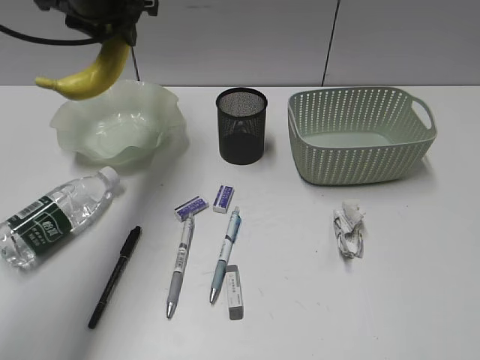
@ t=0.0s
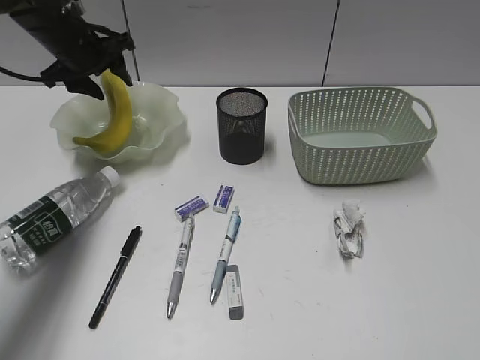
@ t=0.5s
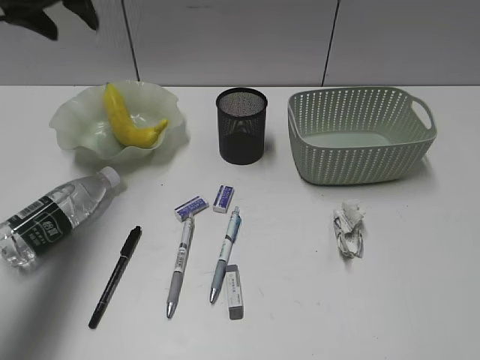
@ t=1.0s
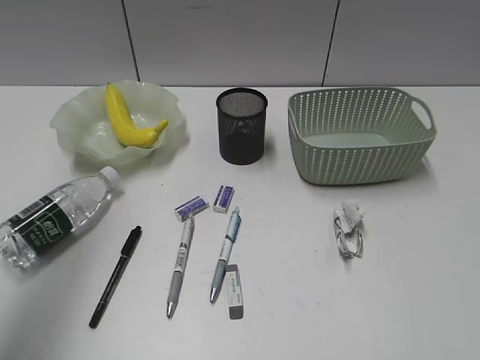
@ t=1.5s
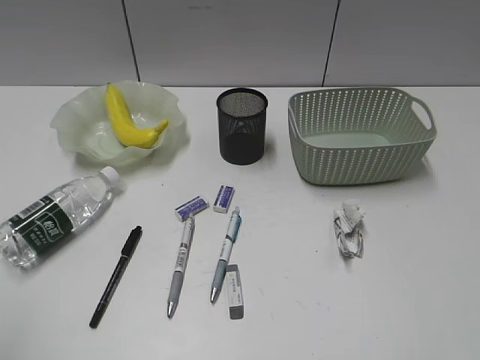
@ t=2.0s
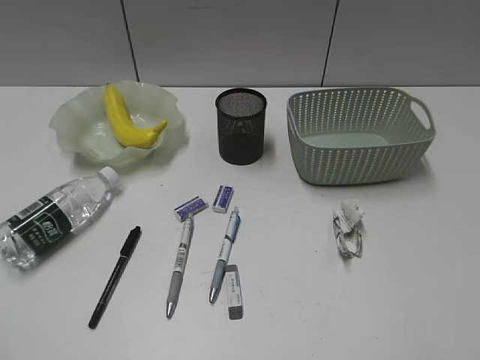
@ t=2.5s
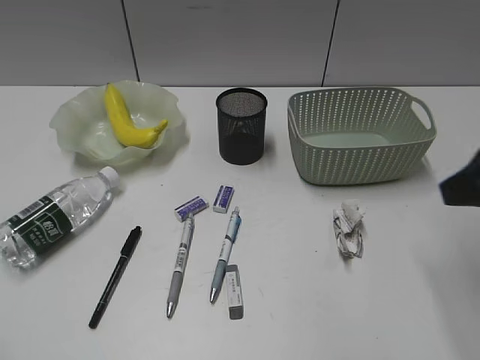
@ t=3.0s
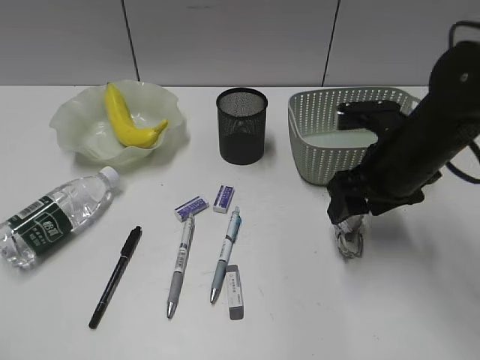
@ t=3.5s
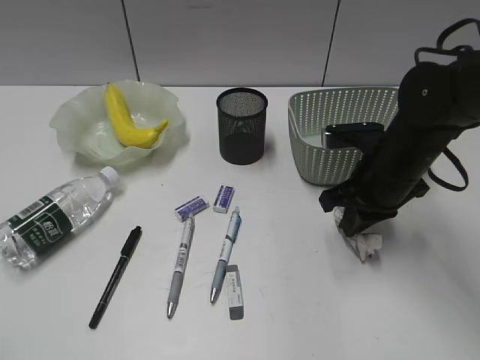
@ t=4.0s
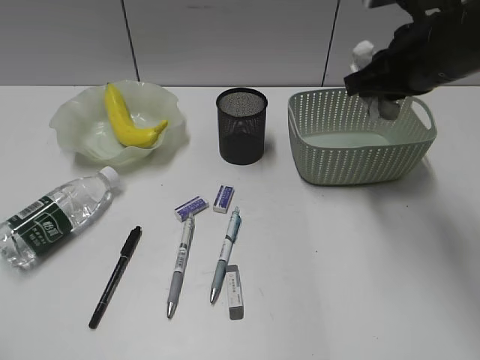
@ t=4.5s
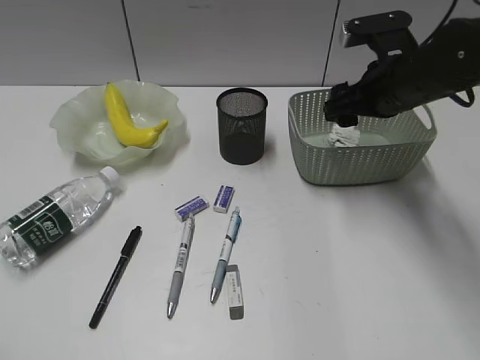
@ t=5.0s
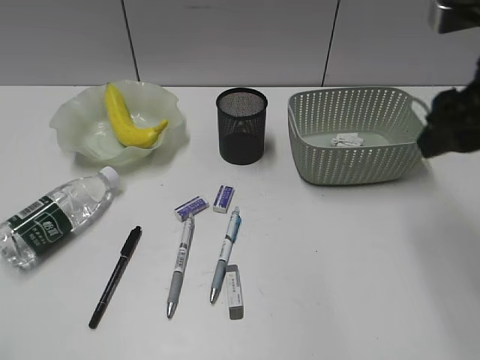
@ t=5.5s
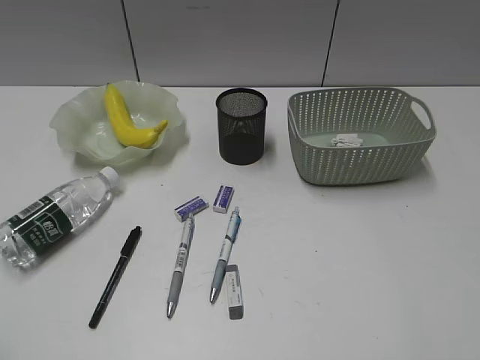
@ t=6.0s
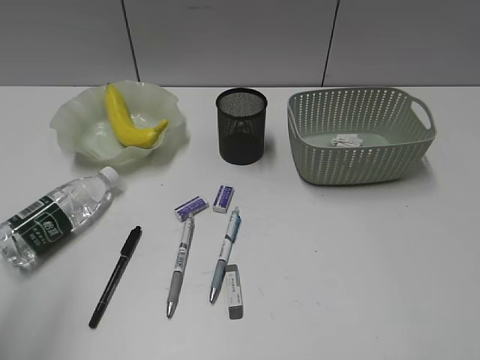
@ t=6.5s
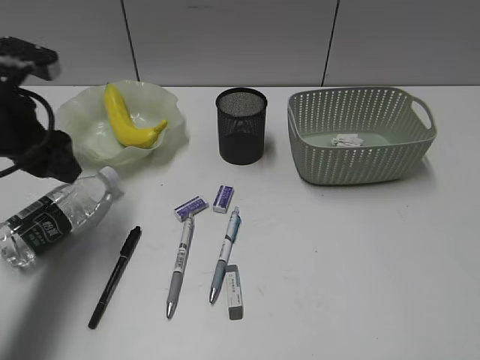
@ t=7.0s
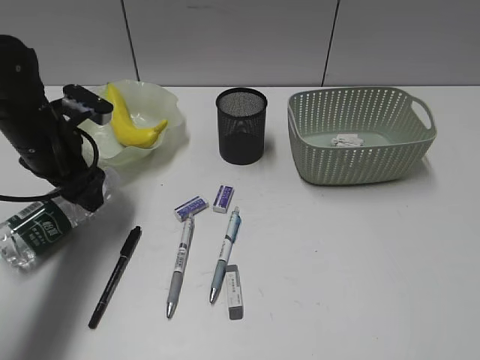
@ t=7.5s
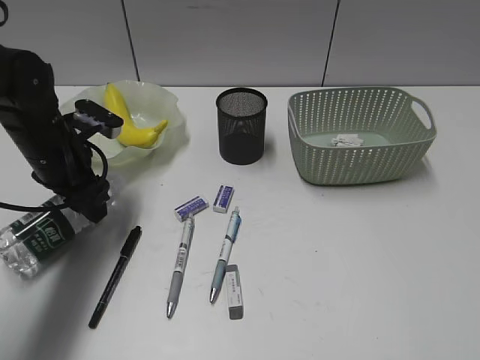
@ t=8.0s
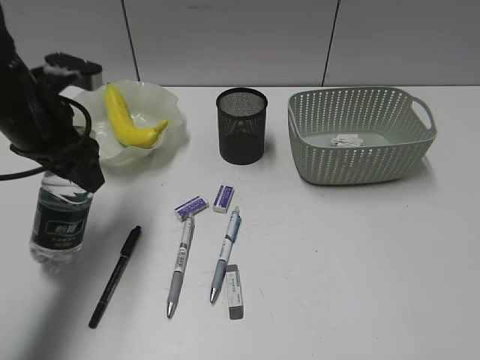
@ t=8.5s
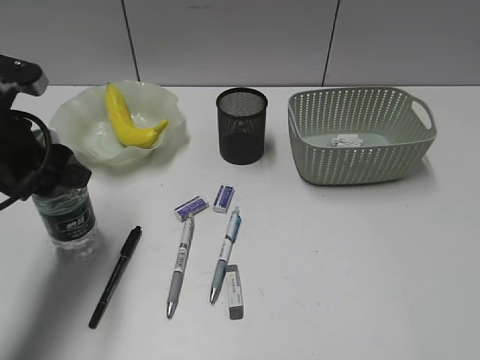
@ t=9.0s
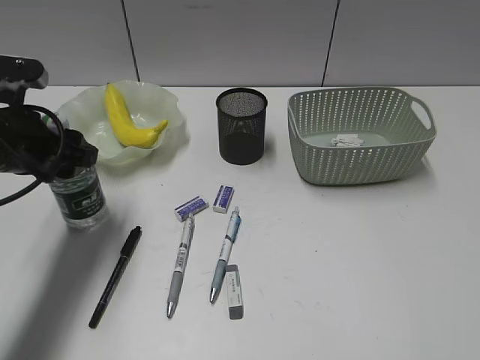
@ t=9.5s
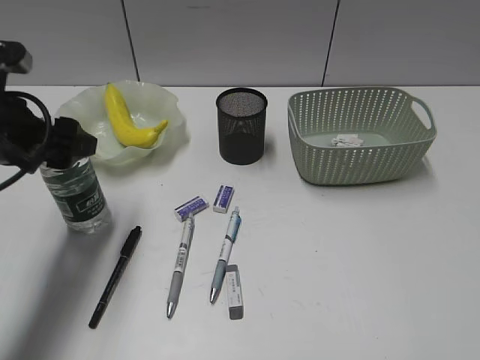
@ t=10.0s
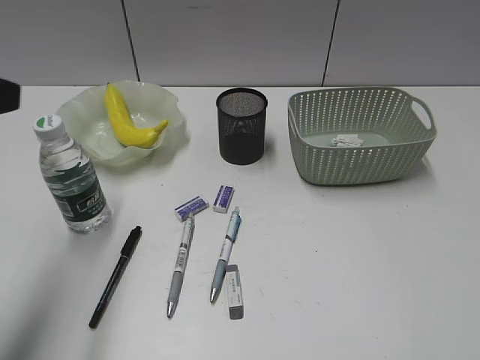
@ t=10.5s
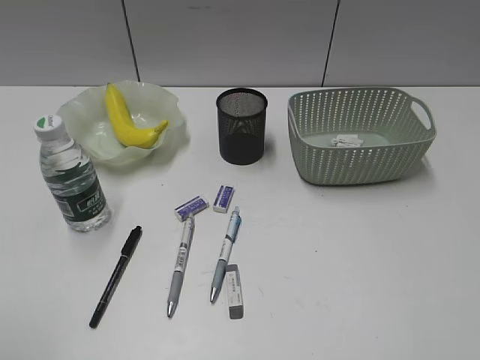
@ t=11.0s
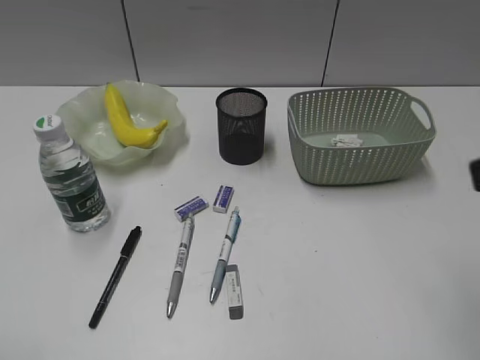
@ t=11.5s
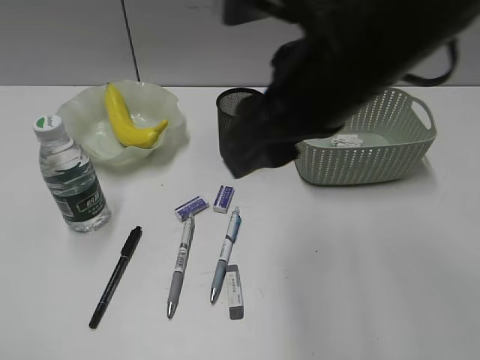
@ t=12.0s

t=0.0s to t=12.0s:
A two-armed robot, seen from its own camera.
Step, t=1.0s to t=4.0s: Grasp the waste paper with right gripper.
Step, t=4.5s to t=5.0s: Place the waste paper in the basket with right gripper.
Step, t=5.5s to t=7.5s: Grasp the bottle with left gripper.
Step, t=8.0s to t=10.0s: Stand the bottle with left gripper.
t=0.0s to t=2.0s: The left gripper is displaced backward by some 40 cm.
t=2.0s to t=4.0s: The right gripper heads forward, downward and to the left, covering roughly 40 cm, and closes up.
t=4.0s to t=6.0s: The right gripper heads backward, upward and to the right, covering some 30 cm, and opens its fingers.
t=6.0s to t=8.0s: The left gripper heads forward and downward, covering about 40 cm.
t=8.0s to t=10.0s: The left gripper shifts roughly 10 cm upward and backward.
t=10.0s to t=12.0s: The left gripper is displaced backward by about 25 cm; the right gripper is displaced to the left and forward by about 35 cm.

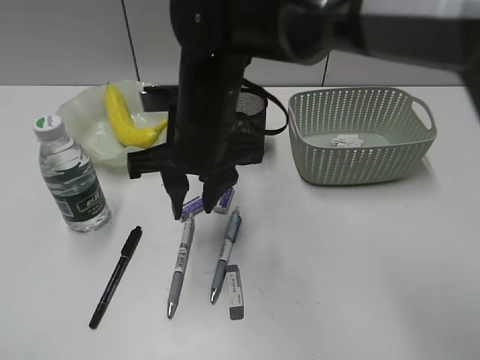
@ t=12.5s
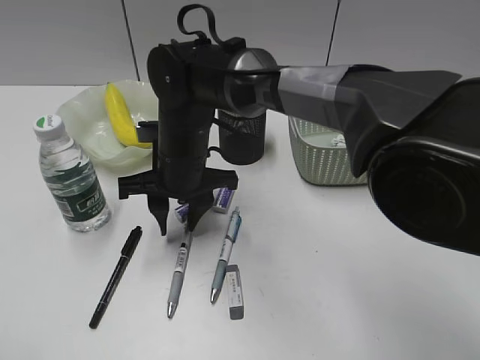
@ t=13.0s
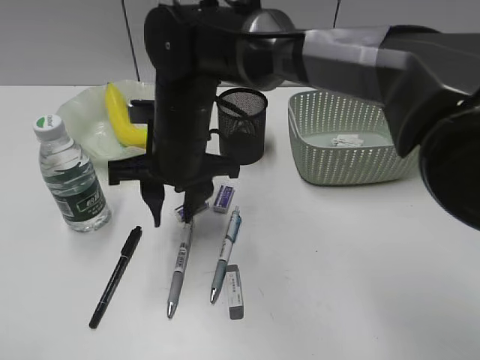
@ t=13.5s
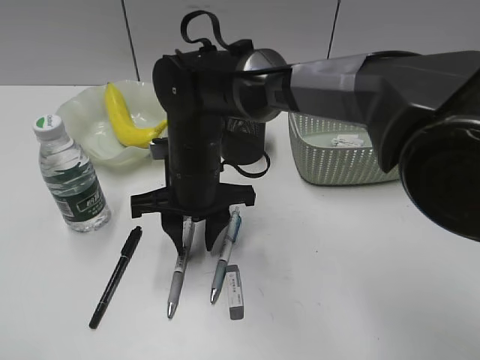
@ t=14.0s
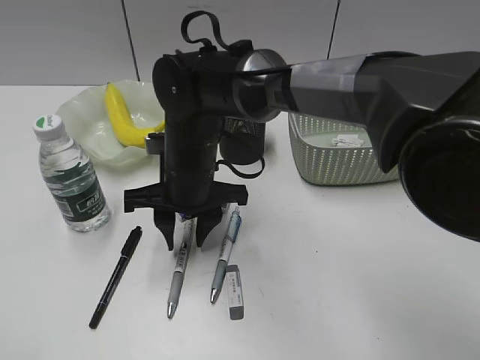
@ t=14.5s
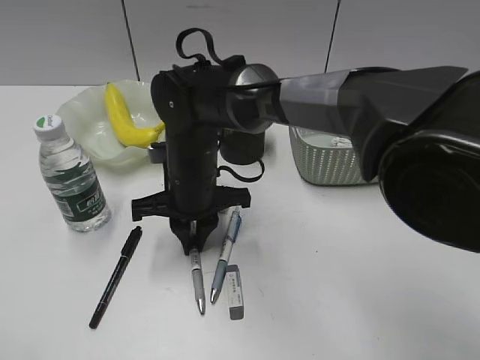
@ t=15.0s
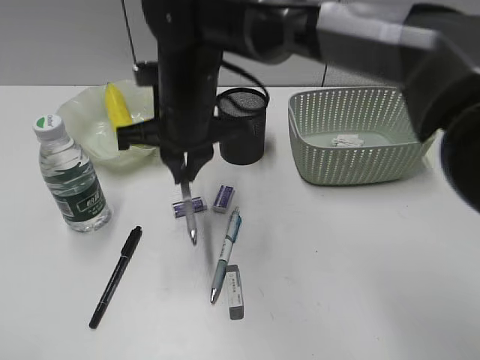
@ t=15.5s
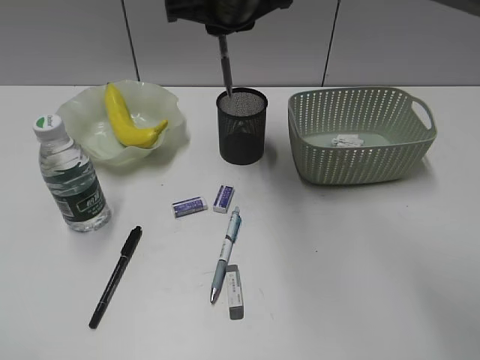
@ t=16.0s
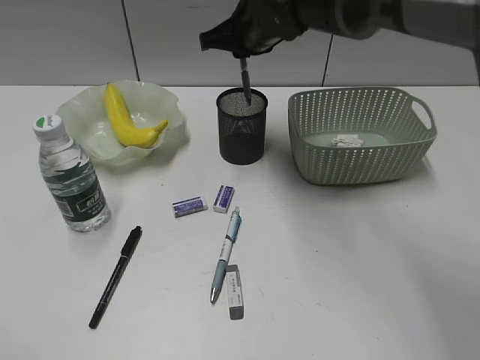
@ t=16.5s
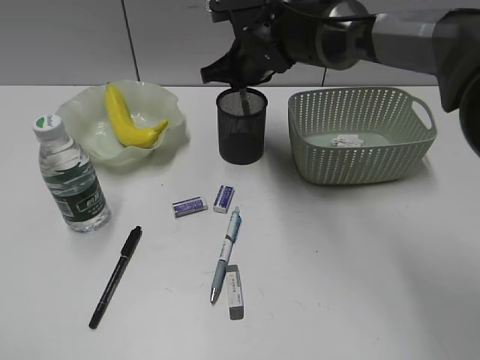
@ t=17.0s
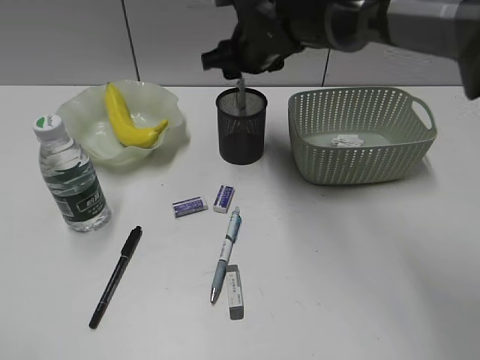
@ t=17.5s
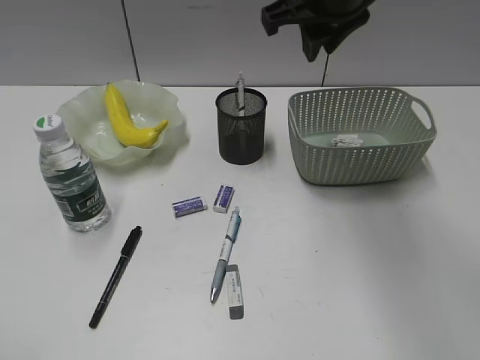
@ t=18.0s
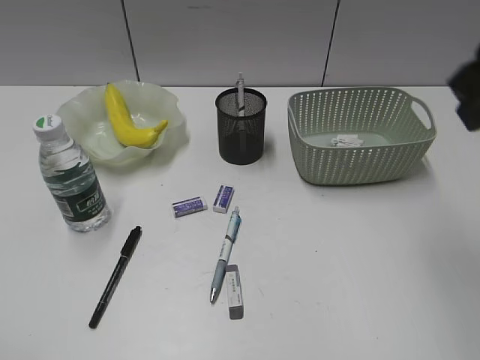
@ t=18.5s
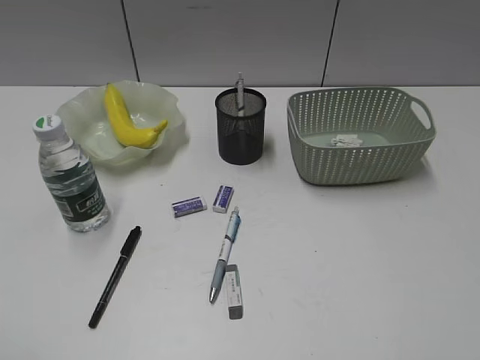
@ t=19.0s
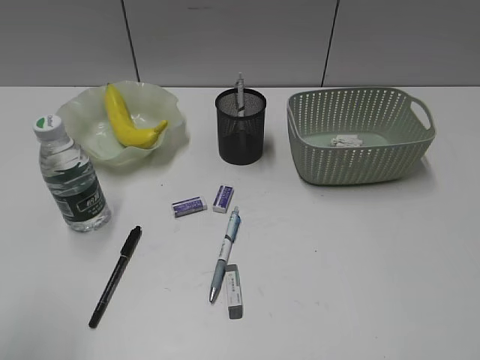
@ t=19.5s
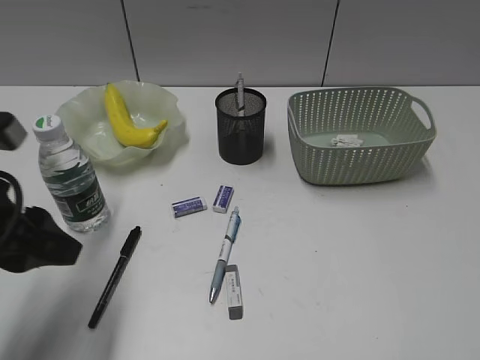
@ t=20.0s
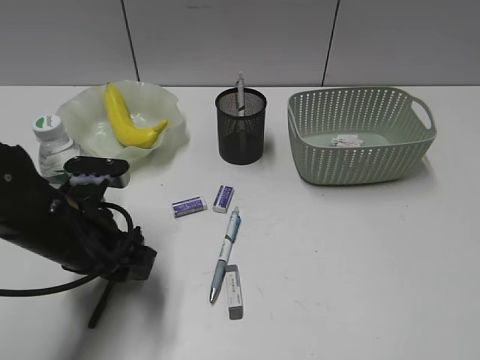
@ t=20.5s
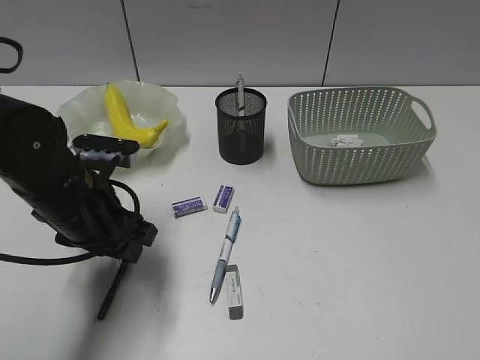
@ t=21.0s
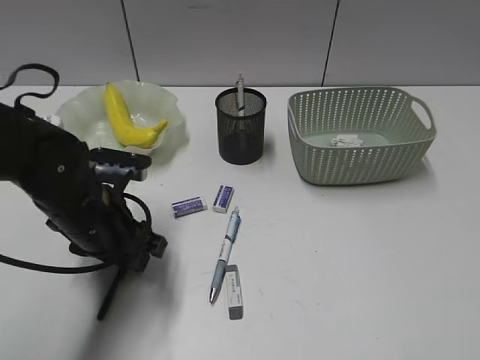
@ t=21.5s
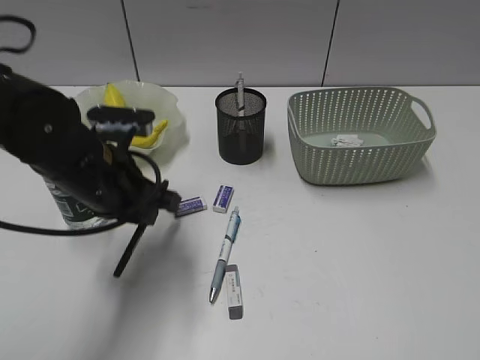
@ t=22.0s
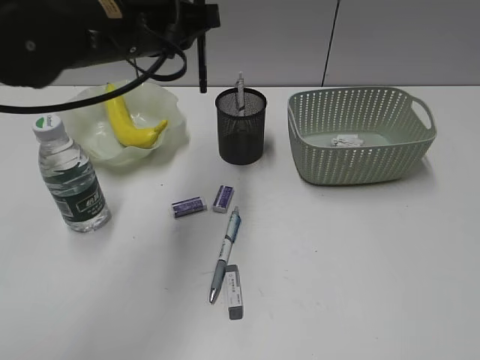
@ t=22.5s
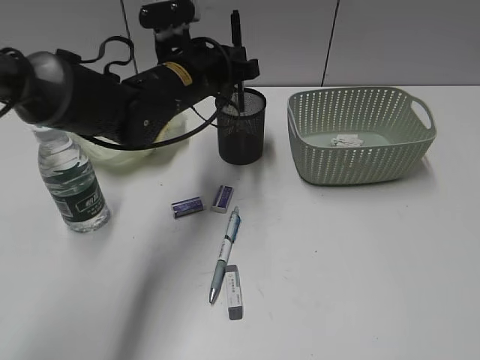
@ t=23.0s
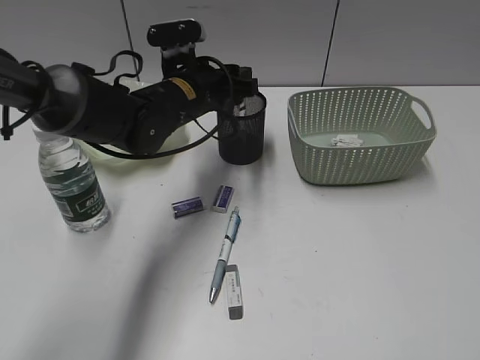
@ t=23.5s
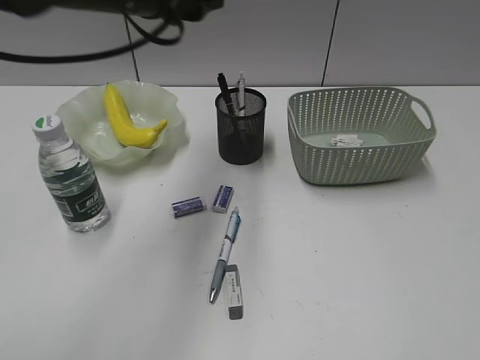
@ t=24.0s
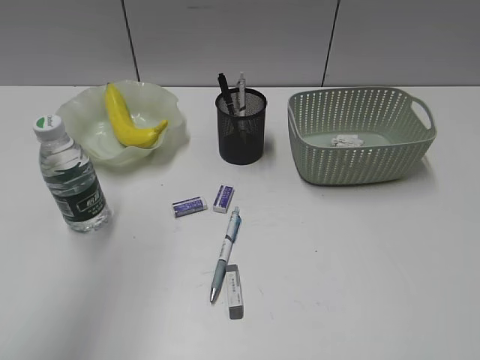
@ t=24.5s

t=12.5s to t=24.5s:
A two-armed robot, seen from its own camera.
Step, t=12.5s to t=15.0s: Grasp the gray pen with right gripper.
Step, t=15.5s to t=17.0s: Place the gray pen in pen holder with right gripper.
Step, t=17.5s to t=21.5s: Grasp the black pen with right gripper.
t=12.5s to t=14.5s: The right gripper is displaced downward by roughly 5 cm.
t=14.5s to t=16.5s: The right gripper moves forward, upward and to the right, roughly 20 cm, and closes.
t=16.5s to t=18.5s: The right gripper shifts some 35 cm backward, to the right and upward, and opens, then closes once more.
t=18.5s to t=20.5s: The right gripper moves backward and to the right, about 25 cm, while the left gripper moves forward, downward and to the right, roughly 30 cm.
t=20.5s to t=22.5s: The left gripper is displaced upward, forward and to the right by roughly 20 cm, and closes up.
t=22.5s to t=24.5s: The left gripper is displaced backward, upward and to the left by about 25 cm, and opens up.

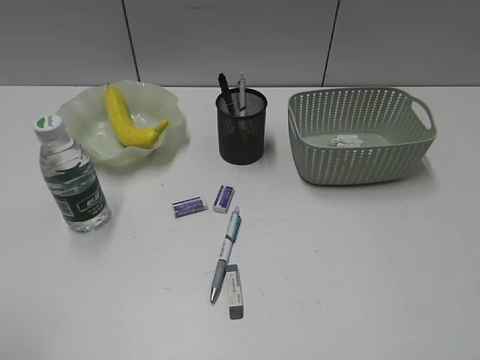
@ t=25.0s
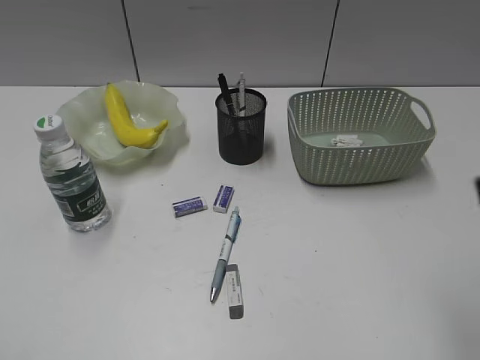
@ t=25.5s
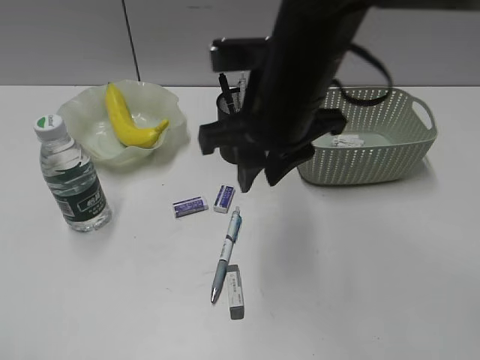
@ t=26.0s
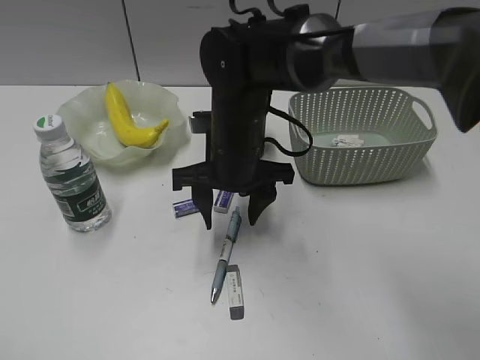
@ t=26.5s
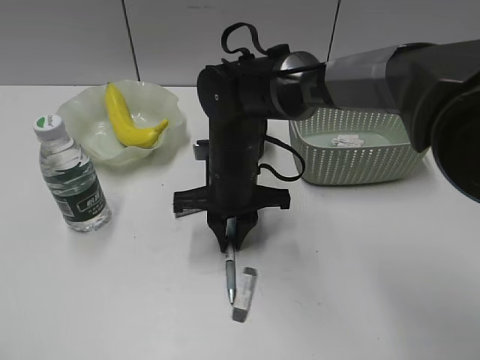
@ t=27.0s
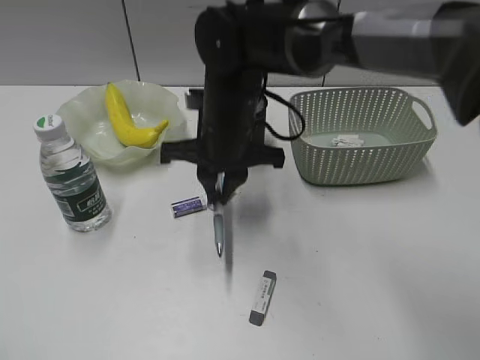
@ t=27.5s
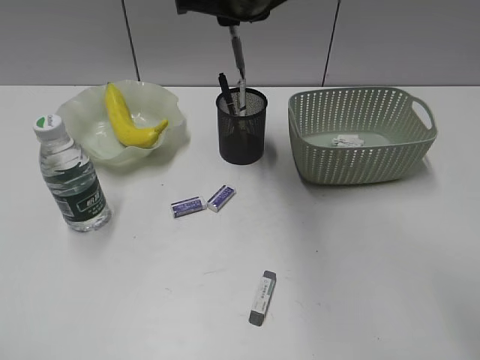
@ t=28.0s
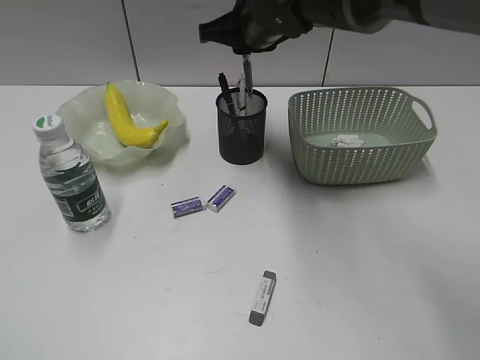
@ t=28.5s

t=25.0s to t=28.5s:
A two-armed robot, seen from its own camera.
Step, t=25.0s to t=27.0s: Grasp the blue pen with right gripper.
t=25.0s to t=27.0s: The right gripper moves to the left, forward and downward, some 50 cm, and opens and closes again.
t=27.0s to t=28.5s: The right gripper travels upward and forward by about 15 cm.
